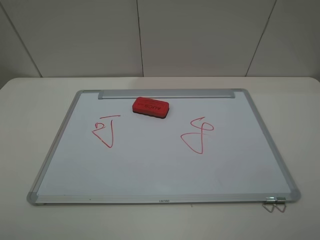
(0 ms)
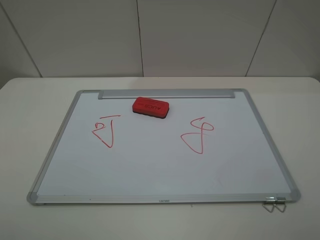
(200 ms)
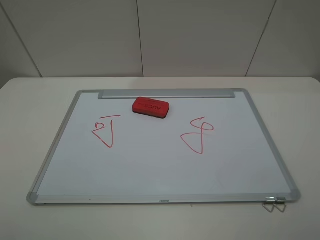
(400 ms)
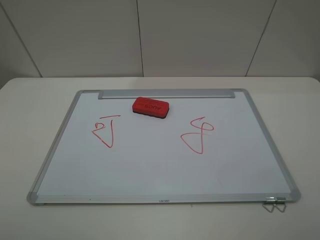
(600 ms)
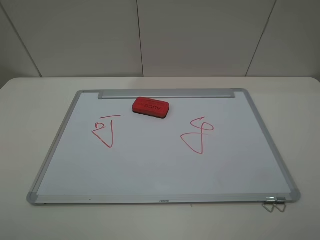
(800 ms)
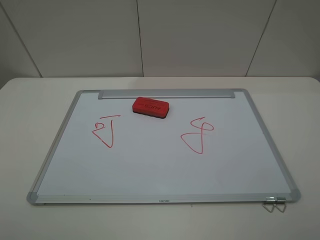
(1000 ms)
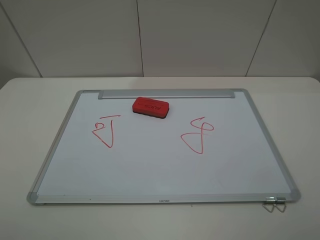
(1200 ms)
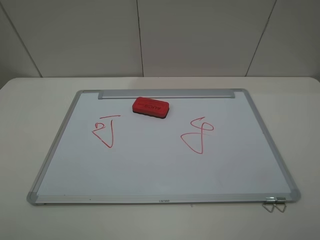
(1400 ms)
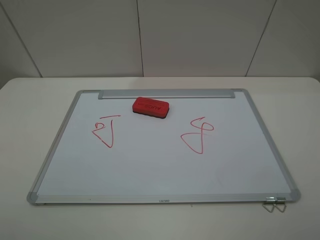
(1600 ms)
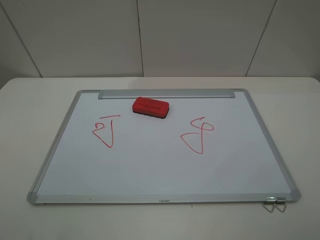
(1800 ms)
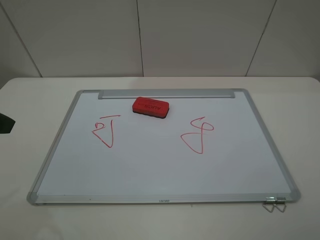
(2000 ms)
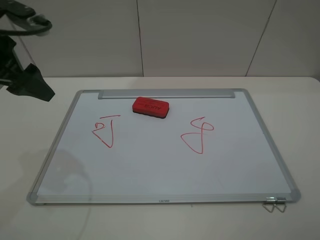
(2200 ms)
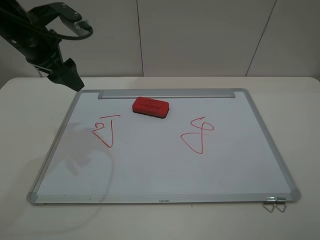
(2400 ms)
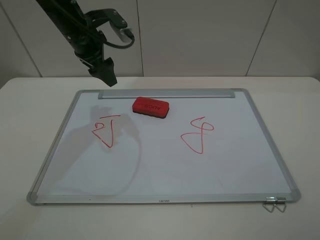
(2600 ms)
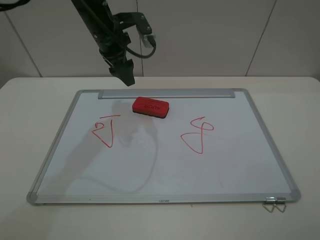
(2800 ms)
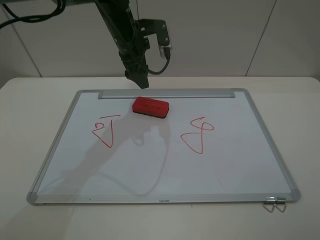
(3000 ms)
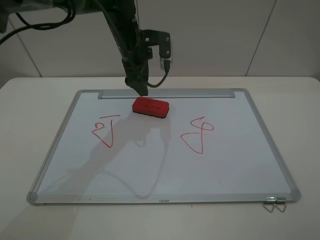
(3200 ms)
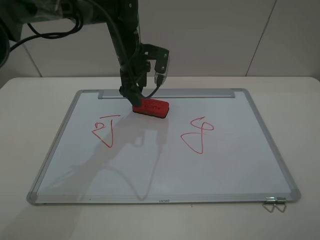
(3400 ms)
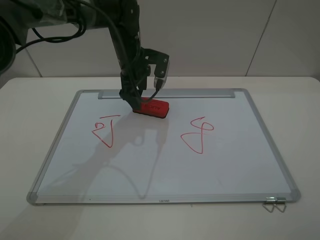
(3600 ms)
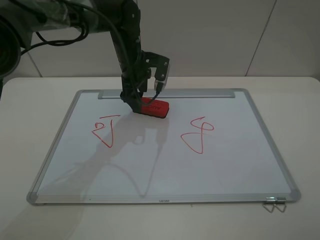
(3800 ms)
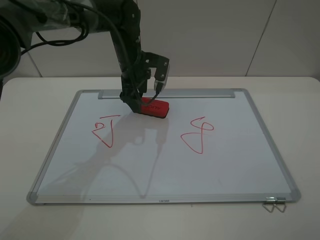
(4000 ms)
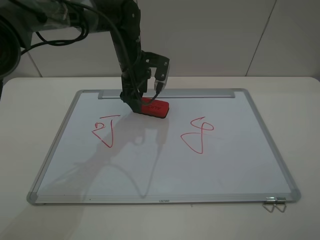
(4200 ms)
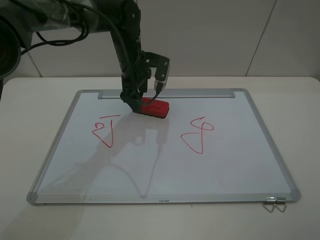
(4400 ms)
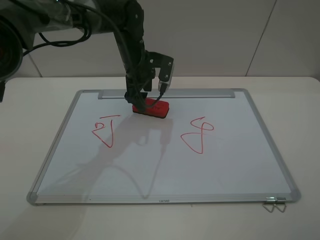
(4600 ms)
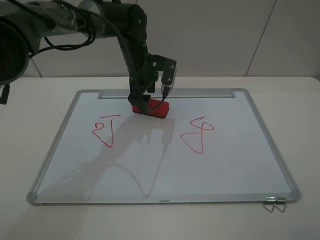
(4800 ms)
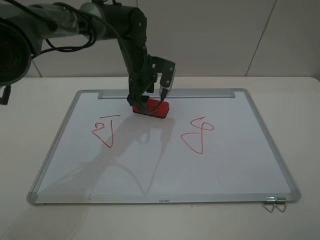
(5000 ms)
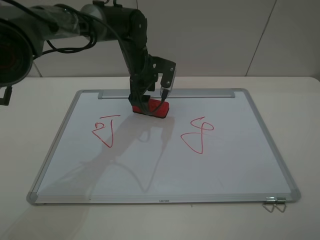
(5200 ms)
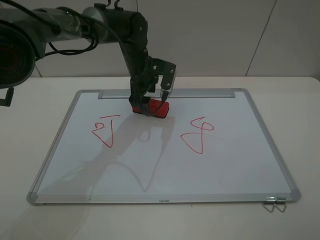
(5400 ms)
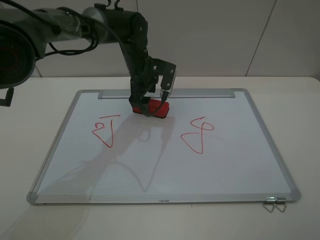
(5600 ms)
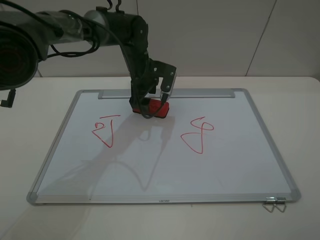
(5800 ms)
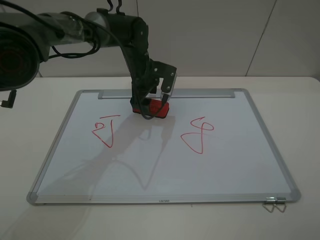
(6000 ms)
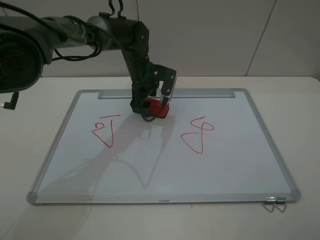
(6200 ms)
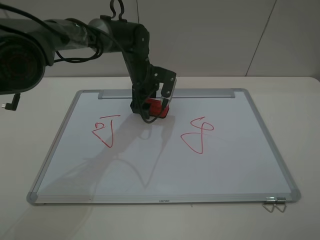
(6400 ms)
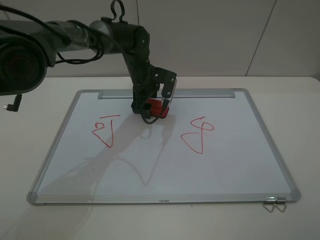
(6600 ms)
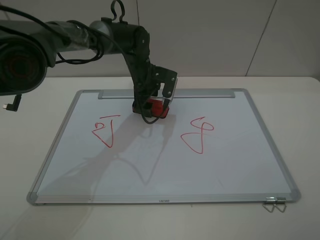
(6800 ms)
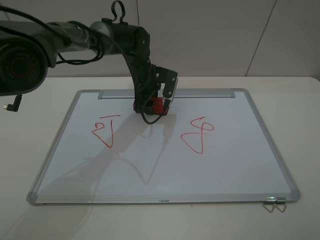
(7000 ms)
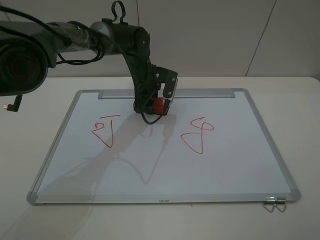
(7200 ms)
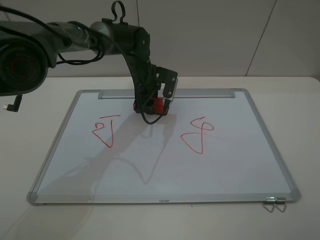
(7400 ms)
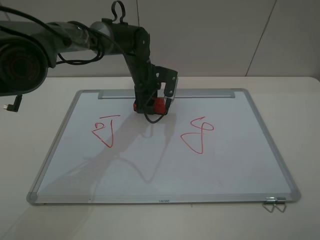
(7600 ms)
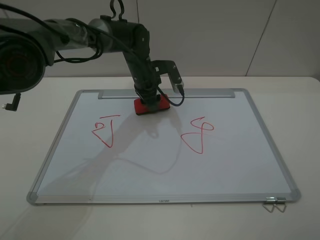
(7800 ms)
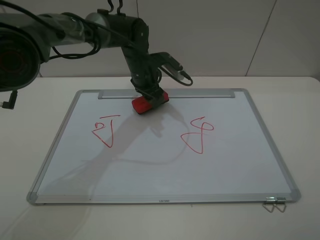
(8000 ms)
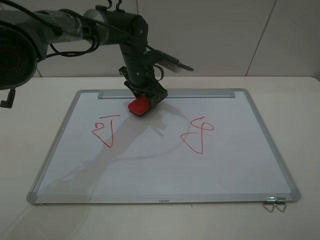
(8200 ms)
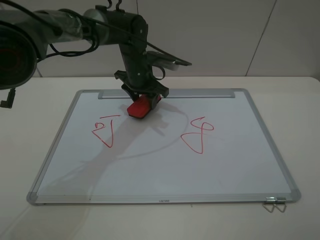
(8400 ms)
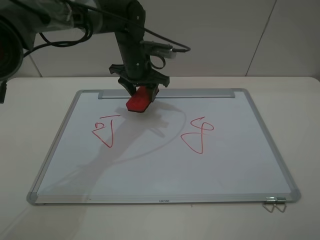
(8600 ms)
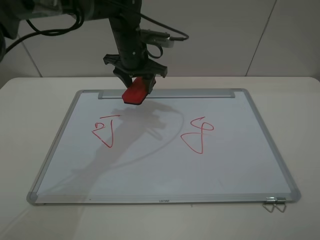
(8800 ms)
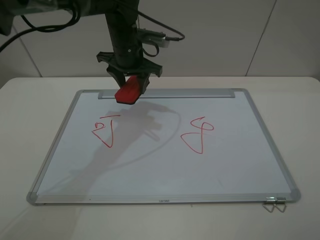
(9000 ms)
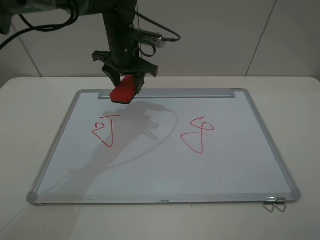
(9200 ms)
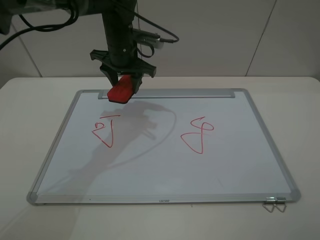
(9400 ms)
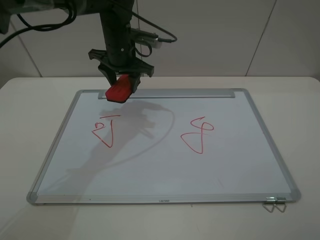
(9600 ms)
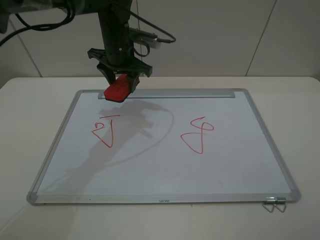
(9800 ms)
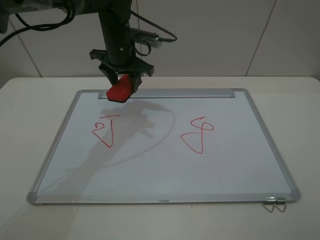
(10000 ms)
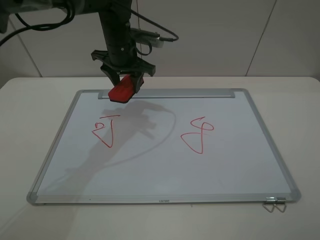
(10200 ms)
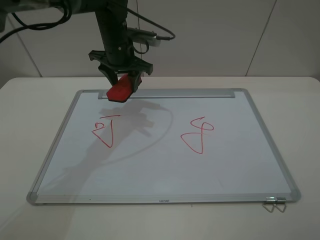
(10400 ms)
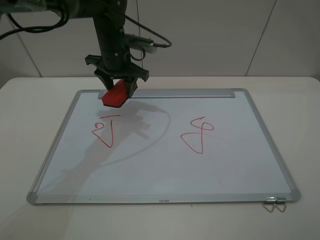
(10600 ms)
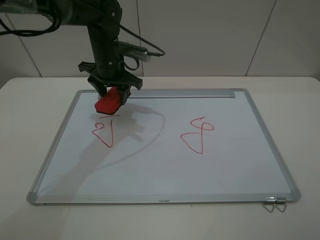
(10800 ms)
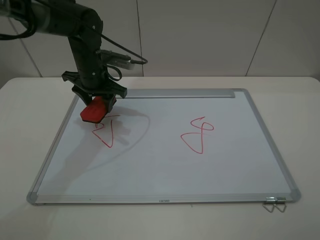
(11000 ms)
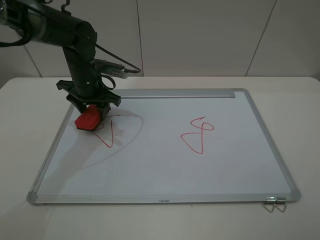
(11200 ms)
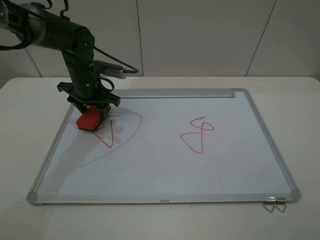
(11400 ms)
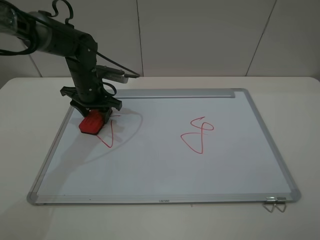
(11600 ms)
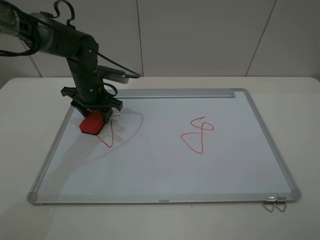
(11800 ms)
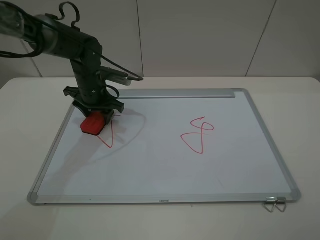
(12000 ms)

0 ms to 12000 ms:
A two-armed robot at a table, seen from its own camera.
Step, 0 ms to 7200 ms: Grasp the eraser with the left gripper.
1600 ms to 3000 ms: The left gripper heads forward and to the right, covering some 50 cm.
3000 ms to 4400 ms: The left gripper shifts roughly 5 cm downward.
4400 ms to 6000 ms: The grippers make only small movements.
6000 ms to 7600 ms: The left gripper closes.
7600 ms to 9000 ms: The left gripper moves upward, about 10 cm.
9000 ms to 10400 ms: The grippers stay close to where they were, moving slightly.
10400 ms to 12000 ms: The left gripper shifts some 10 cm downward and to the left.

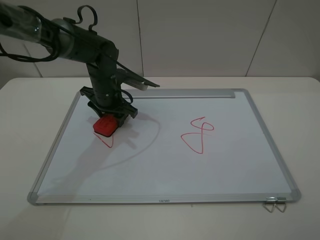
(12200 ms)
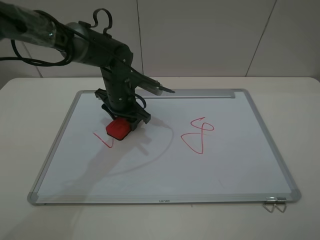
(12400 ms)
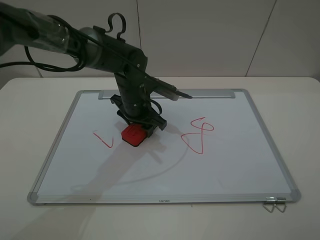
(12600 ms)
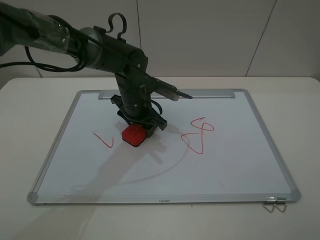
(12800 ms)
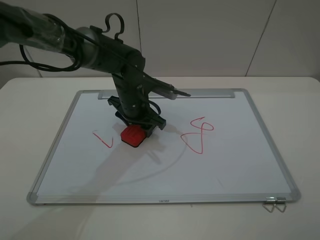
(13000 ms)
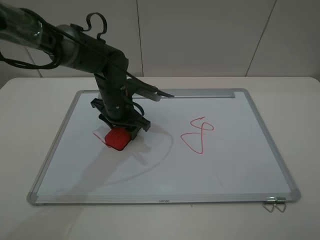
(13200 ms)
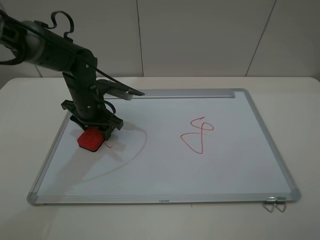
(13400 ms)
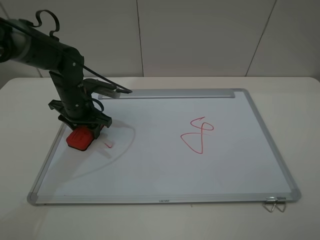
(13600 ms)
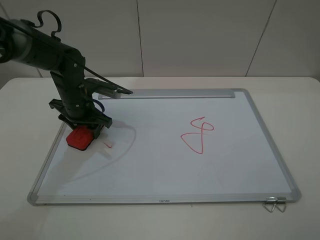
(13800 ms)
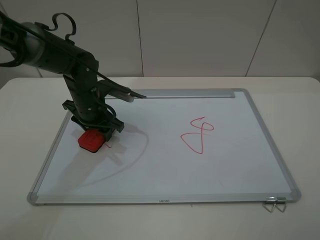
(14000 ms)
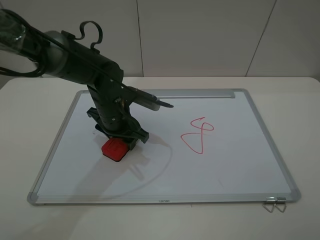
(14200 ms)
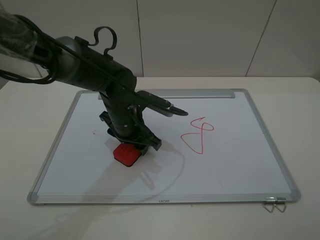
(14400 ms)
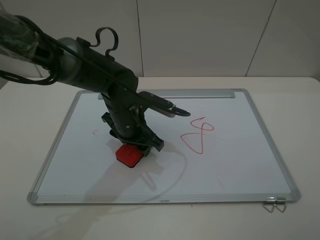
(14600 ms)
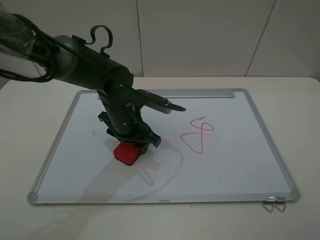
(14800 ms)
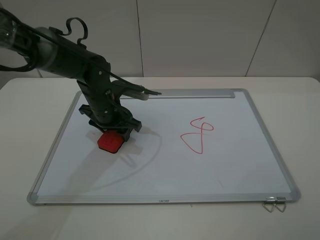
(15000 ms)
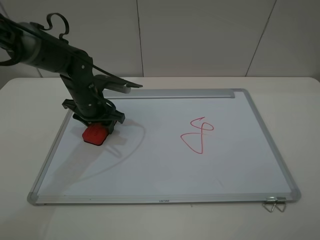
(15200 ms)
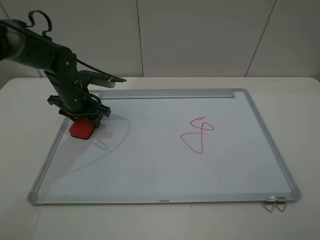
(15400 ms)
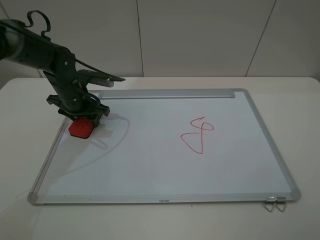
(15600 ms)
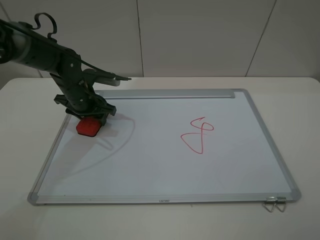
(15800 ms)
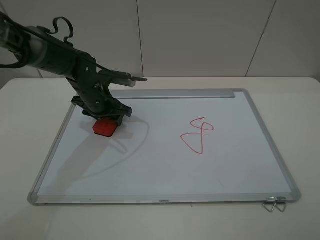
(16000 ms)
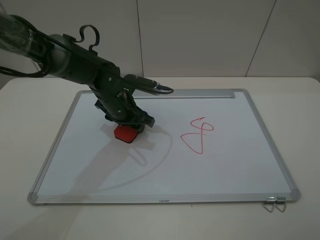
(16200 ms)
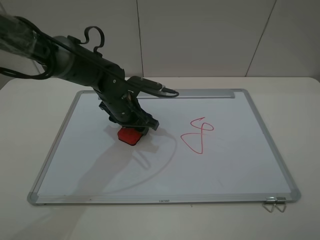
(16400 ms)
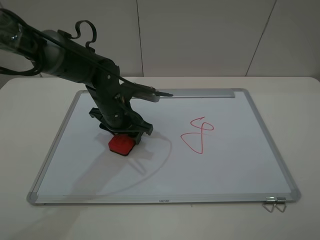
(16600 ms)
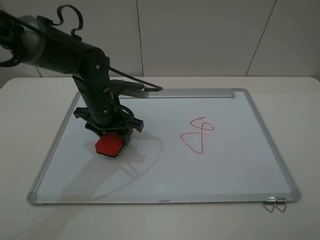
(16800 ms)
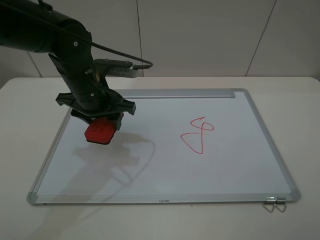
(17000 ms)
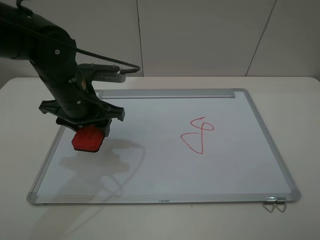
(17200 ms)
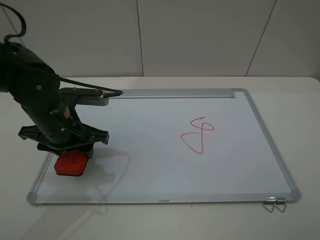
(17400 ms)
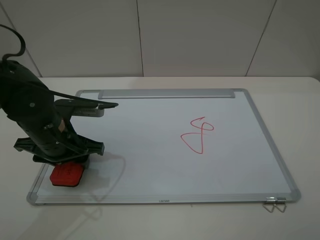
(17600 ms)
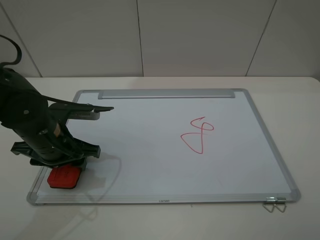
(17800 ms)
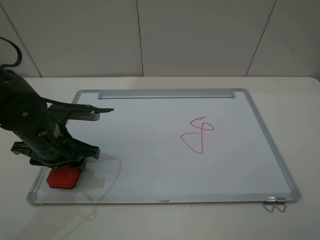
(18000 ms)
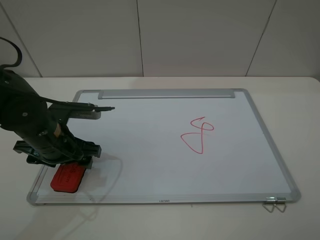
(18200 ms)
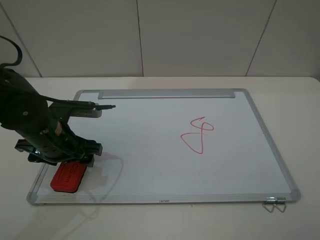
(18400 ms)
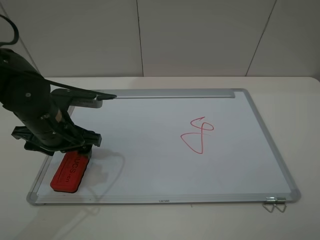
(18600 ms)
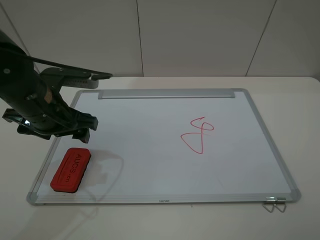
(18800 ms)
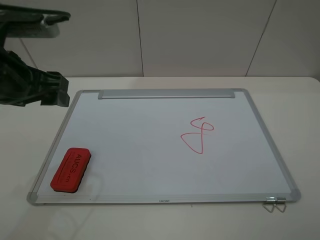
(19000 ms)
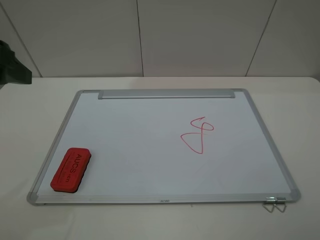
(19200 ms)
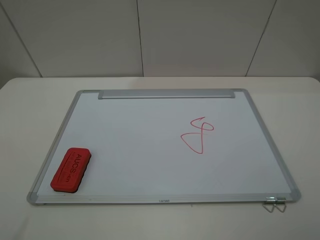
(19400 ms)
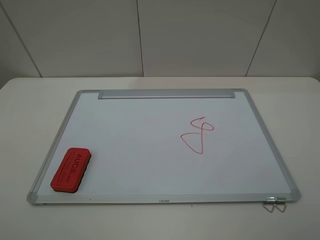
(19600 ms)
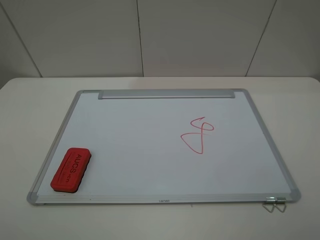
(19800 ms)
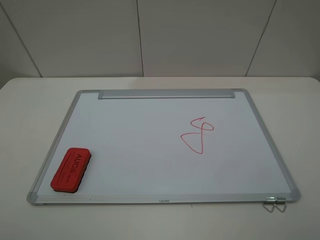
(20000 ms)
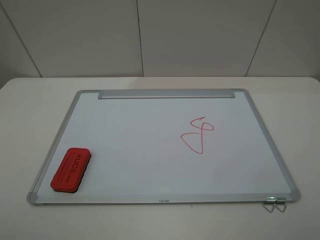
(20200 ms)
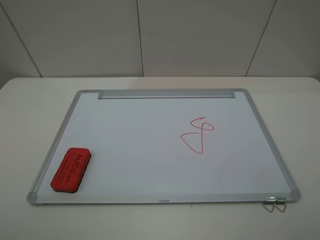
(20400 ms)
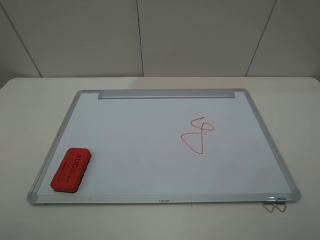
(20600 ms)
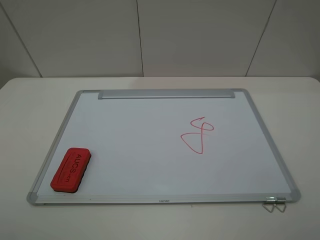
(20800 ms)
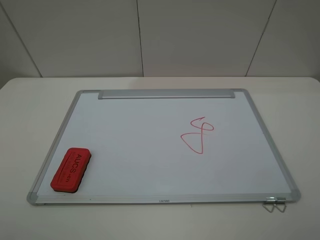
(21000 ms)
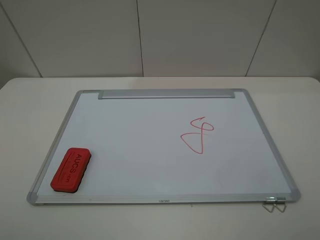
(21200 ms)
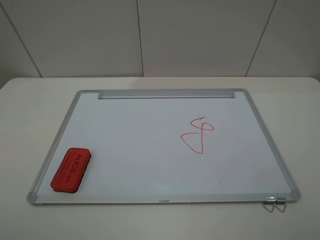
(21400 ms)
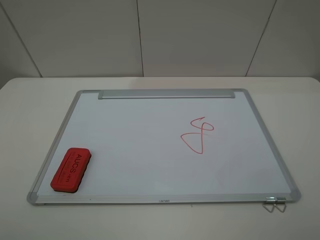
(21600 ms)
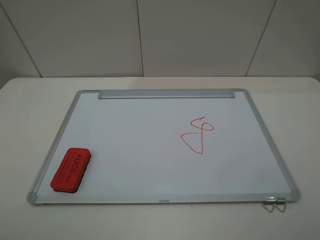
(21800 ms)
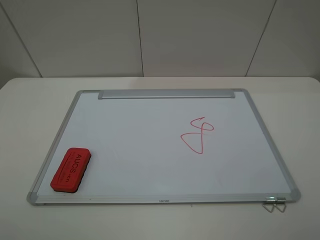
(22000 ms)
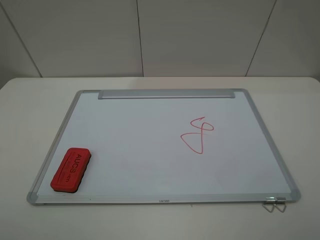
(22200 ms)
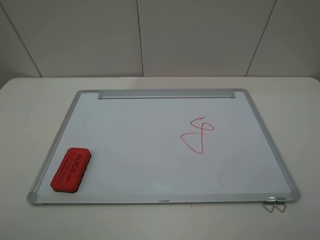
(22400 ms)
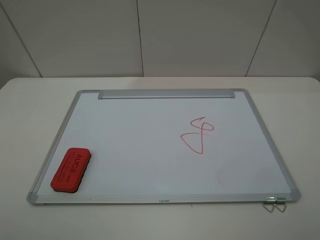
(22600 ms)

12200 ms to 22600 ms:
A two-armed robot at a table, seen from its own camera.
Step, 12200 ms to 16600 ms: Grasp the eraser and wipe the blackboard with the left gripper.
Step, 16800 ms to 18600 ms: Place the eraser with the left gripper.
12200 ms to 13600 ms: The left gripper shifts approximately 10 cm to the left.
13600 ms to 15200 ms: The left gripper travels to the right and back again, approximately 15 cm each way.
15200 ms to 16600 ms: The left gripper shifts roughly 5 cm to the right.
16600 ms to 18200 ms: The left gripper is displaced backward and to the left by about 15 cm, and opens its fingers.
18200 ms to 19600 ms: The left gripper goes approximately 30 cm upward, backward and to the left.
